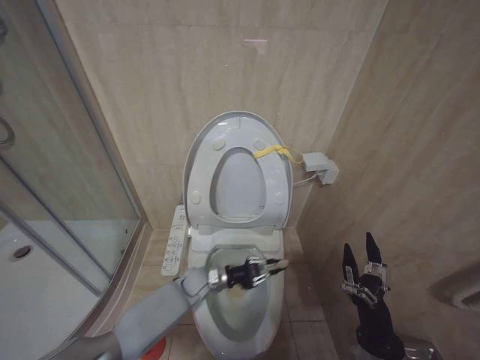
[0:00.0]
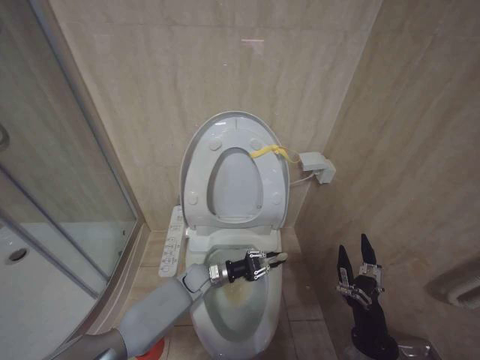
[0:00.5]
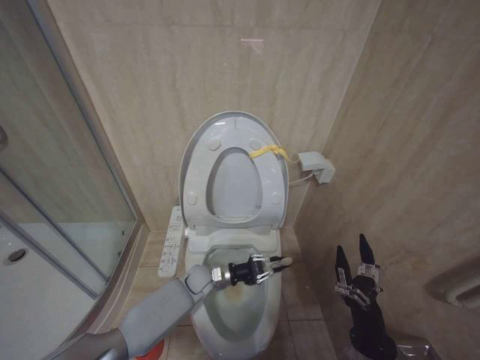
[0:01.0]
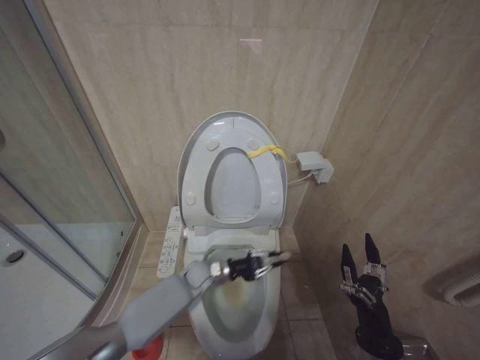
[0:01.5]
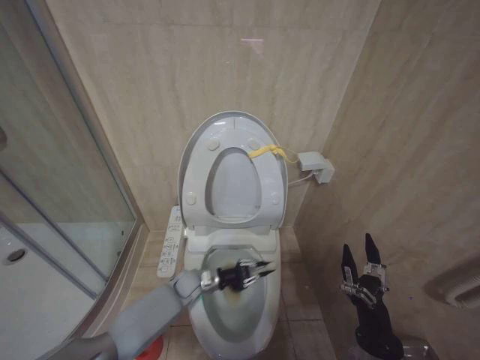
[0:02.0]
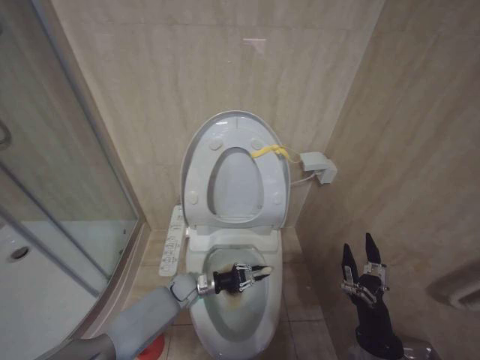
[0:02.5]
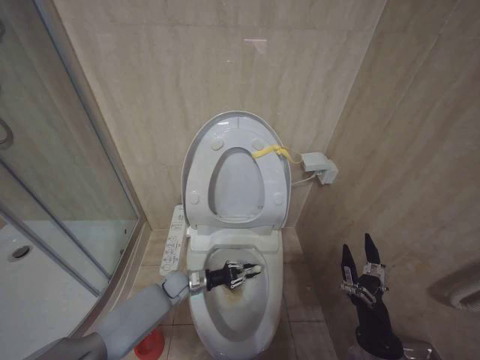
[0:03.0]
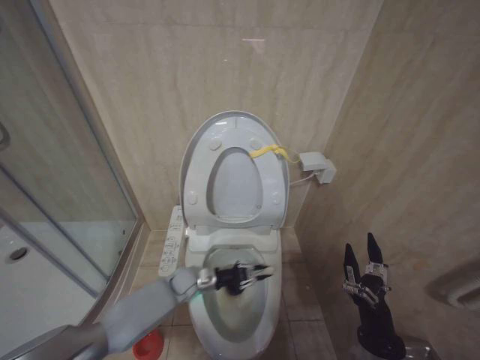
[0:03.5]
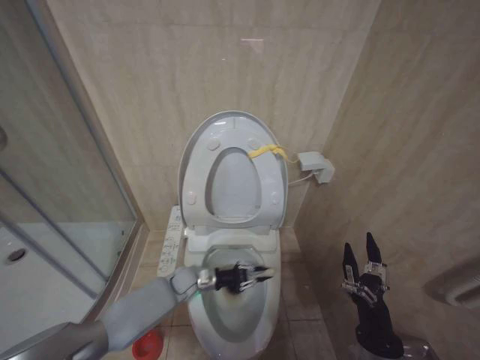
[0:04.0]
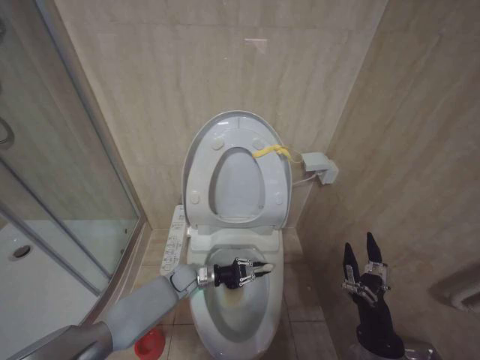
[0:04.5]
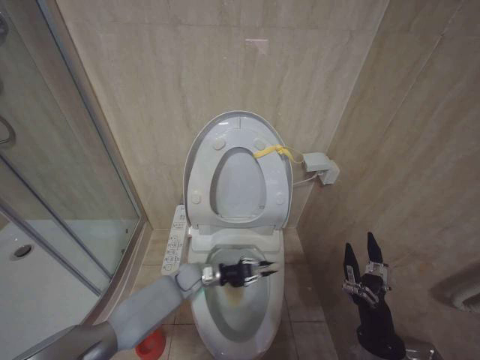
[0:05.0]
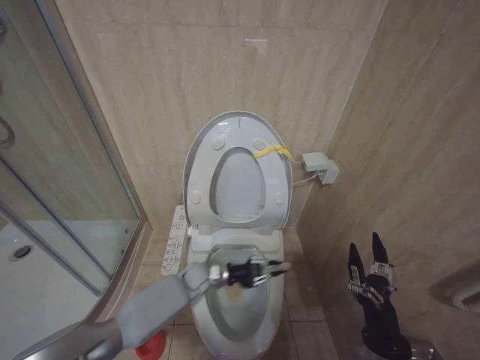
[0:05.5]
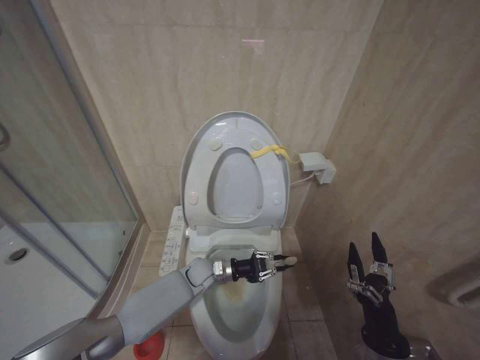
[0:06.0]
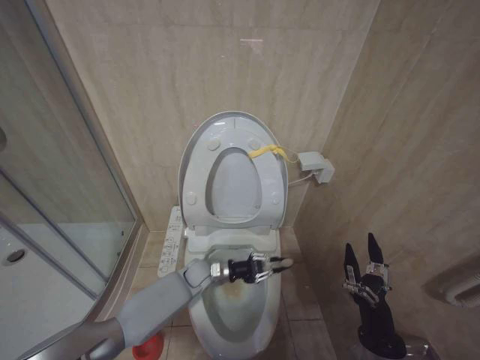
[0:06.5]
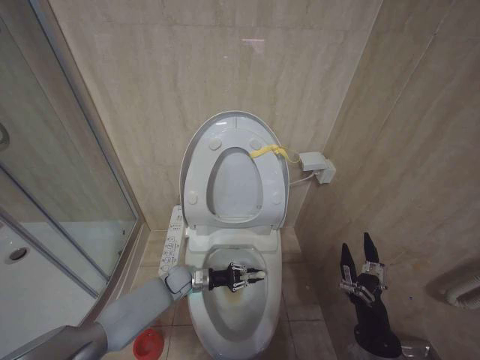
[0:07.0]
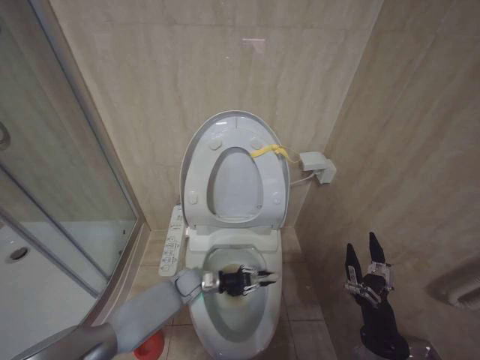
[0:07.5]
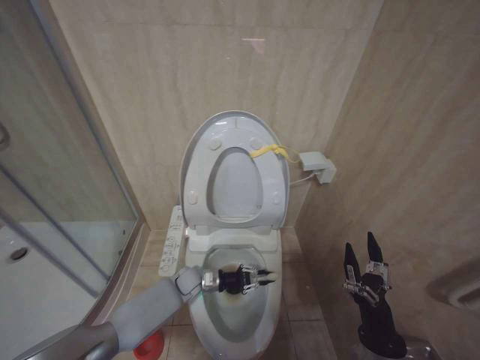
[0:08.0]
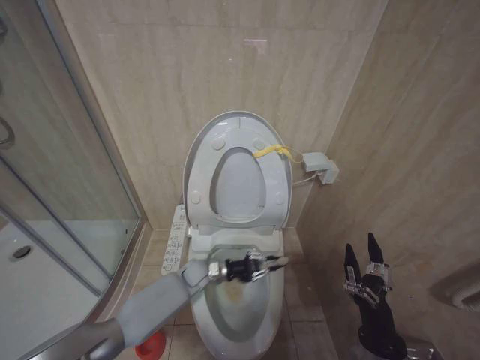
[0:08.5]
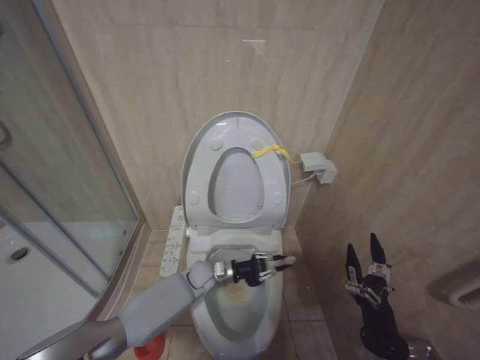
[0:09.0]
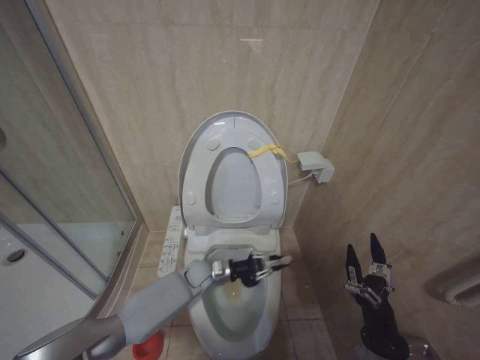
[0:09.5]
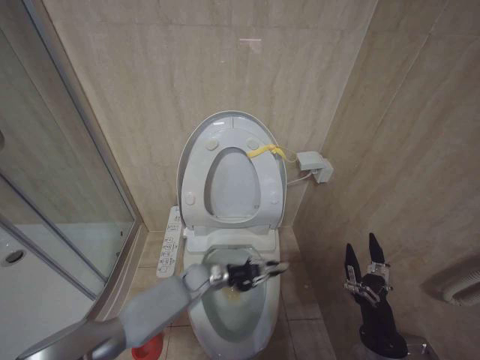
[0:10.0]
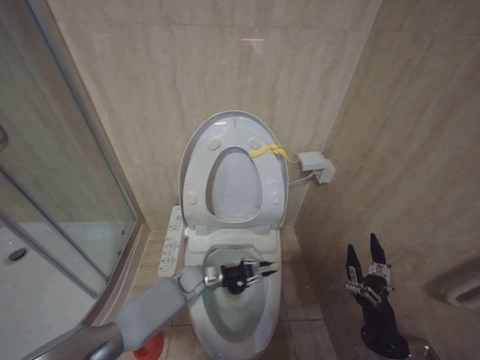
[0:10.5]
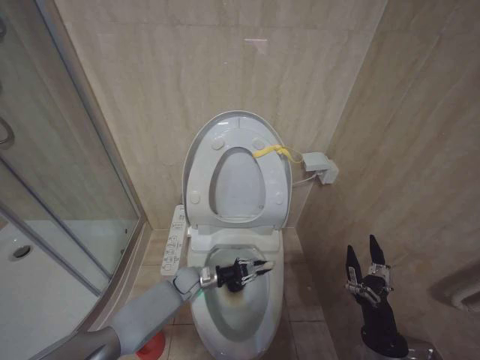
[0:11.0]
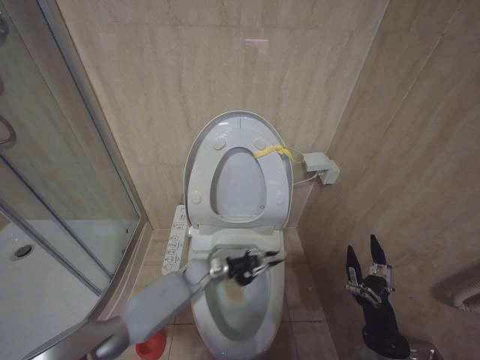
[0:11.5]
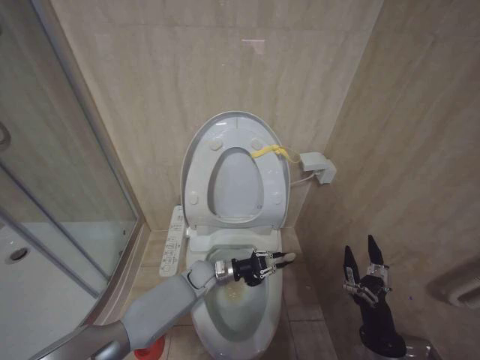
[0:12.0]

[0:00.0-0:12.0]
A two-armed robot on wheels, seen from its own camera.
Task of the whole recording: Open the toilet lid, clean the toilet bowl with a toilet brush, close the toilet lid, and flush.
0:04.0 to 0:06.0: The grippers stay close to where they were, moving slightly.
0:08.0 to 0:10.0: The grippers move only a little.
0:10.0 to 0:12.0: The grippers stay close to where they were, moving slightly.

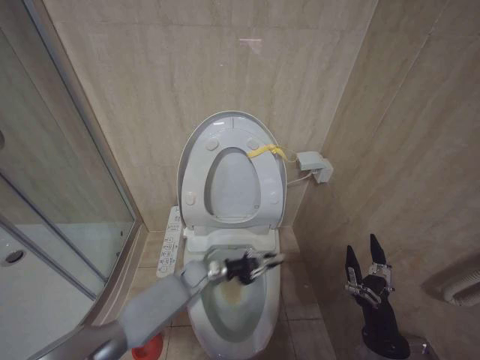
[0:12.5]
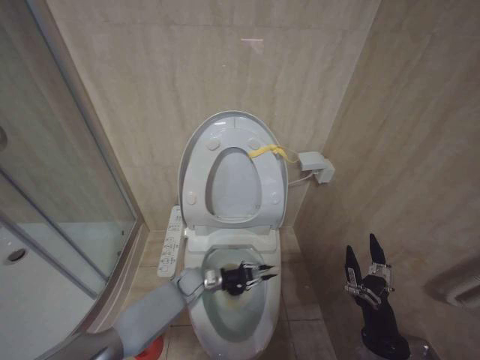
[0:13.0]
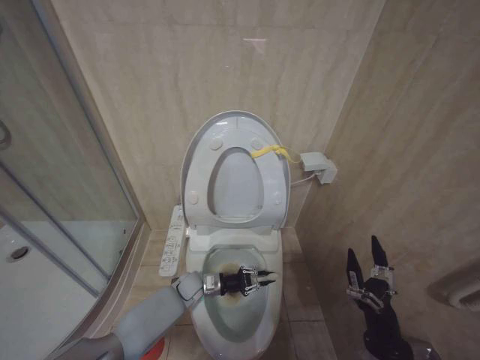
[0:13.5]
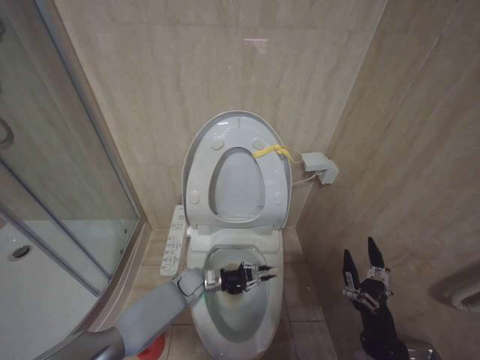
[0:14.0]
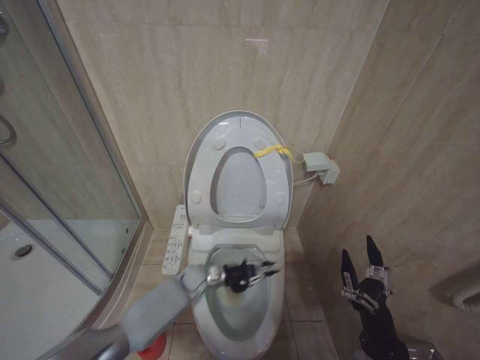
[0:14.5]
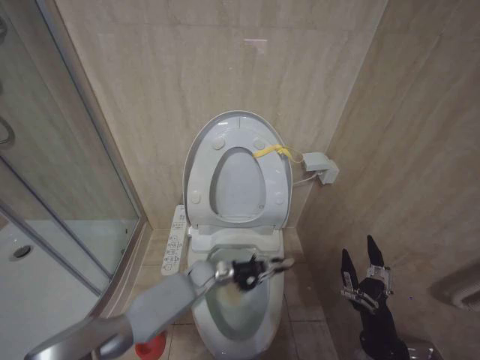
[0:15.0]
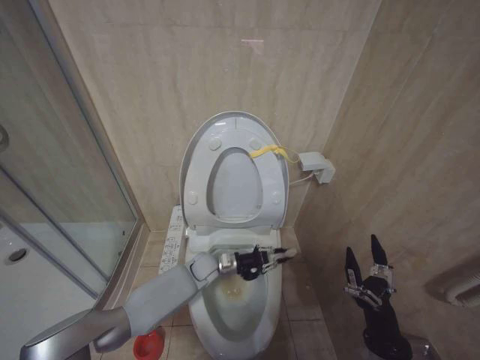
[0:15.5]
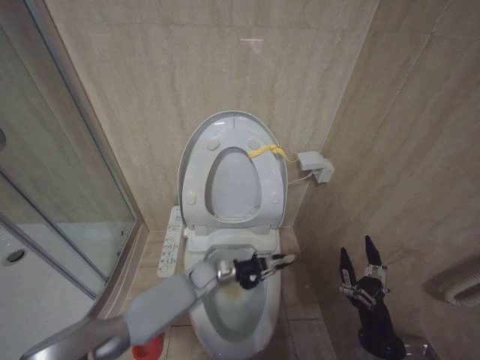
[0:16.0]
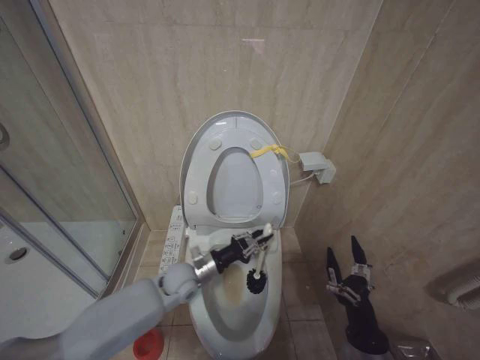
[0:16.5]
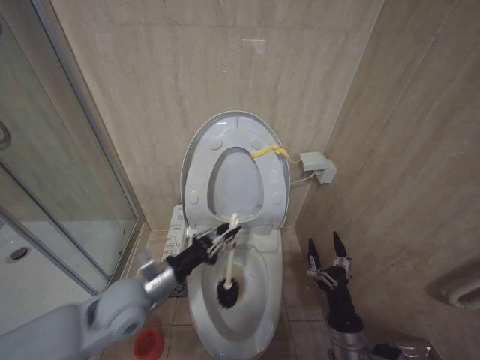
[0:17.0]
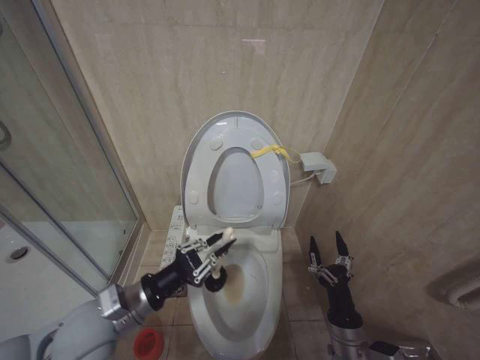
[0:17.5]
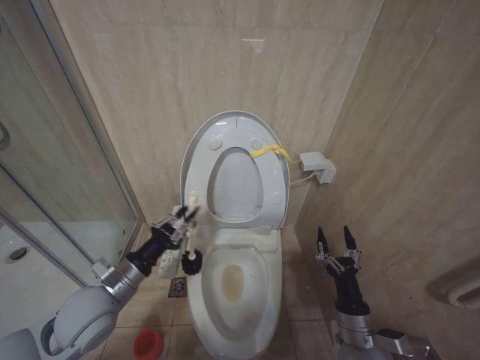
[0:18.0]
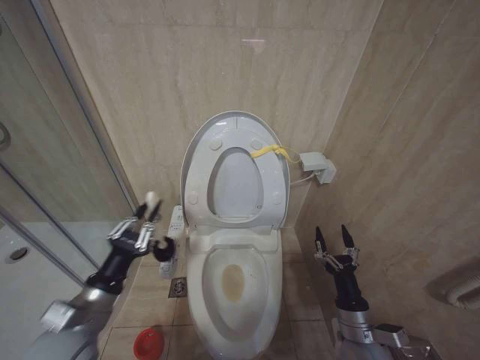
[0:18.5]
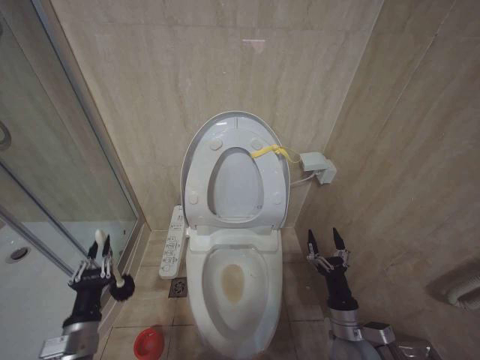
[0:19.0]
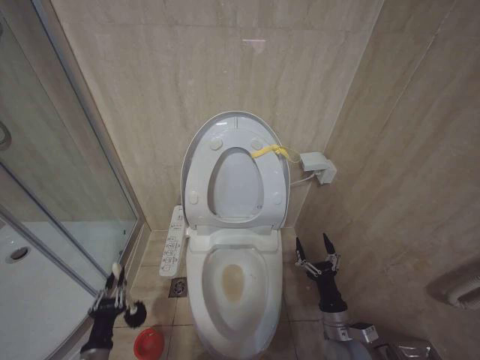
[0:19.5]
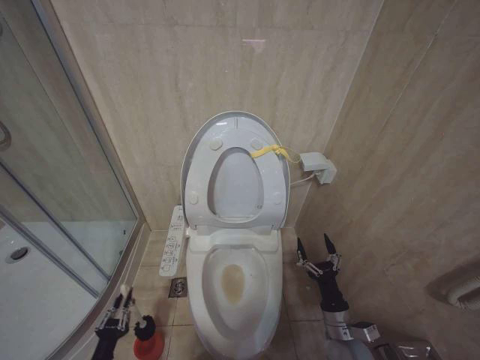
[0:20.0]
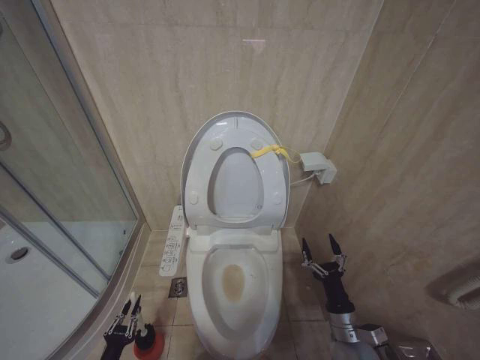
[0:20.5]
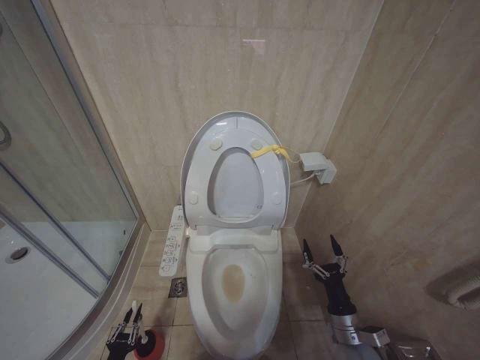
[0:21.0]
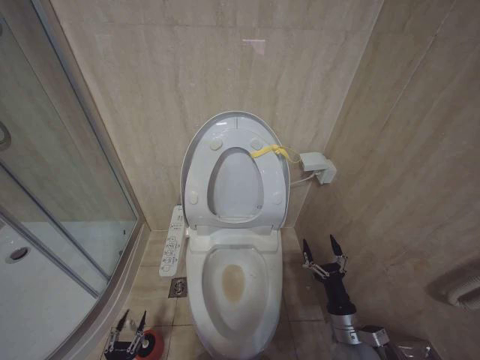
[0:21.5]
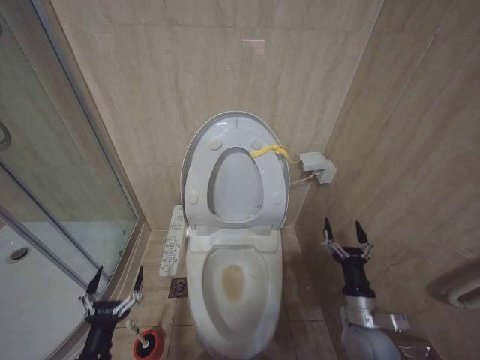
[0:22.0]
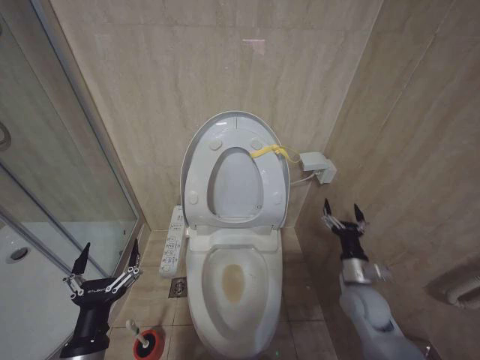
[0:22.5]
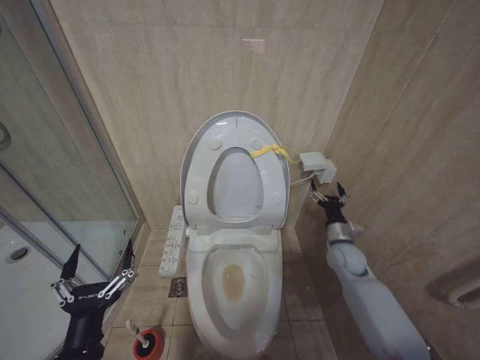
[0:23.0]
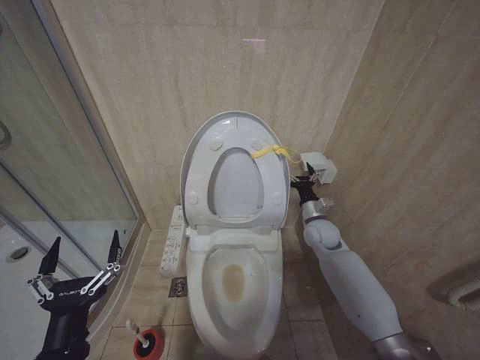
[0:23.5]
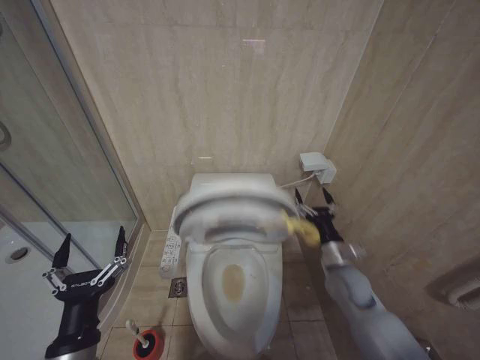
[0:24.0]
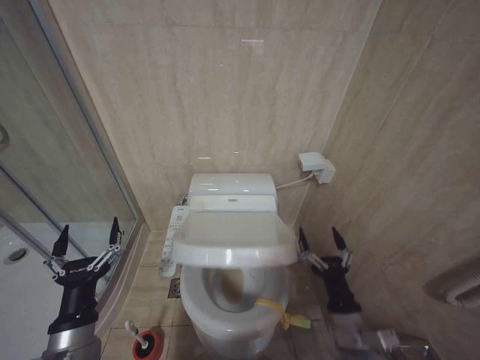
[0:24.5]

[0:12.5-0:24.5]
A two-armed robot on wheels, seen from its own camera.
Task of the whole recording: Open the toilet lid, clean the toilet bowl with a toilet brush, close the toilet lid, and flush.
0:12.5 to 0:14.5: The left gripper heads downward, covering some 5 cm.
0:14.5 to 0:16.5: The left gripper goes approximately 10 cm upward.
0:16.5 to 0:18.5: The right gripper heads forward, covering about 5 cm. The left gripper goes approximately 25 cm backward, to the left and upward.
0:18.5 to 0:20.5: The right gripper moves downward, about 5 cm. The left gripper travels downward by about 35 cm.
0:20.5 to 0:22.5: The right gripper moves upward and forward, roughly 10 cm, while the left gripper is displaced upward and to the right by approximately 30 cm, and opens its fingers.
0:22.5 to 0:24.5: The right gripper heads to the left, covering roughly 5 cm, and reaches about 20 cm forward, then returns.

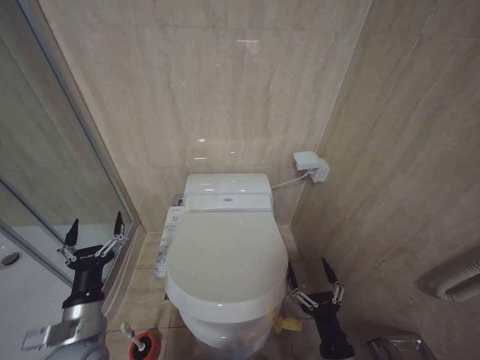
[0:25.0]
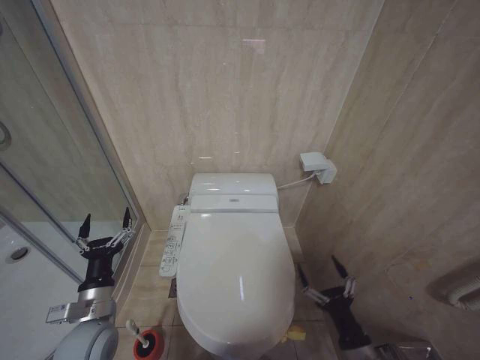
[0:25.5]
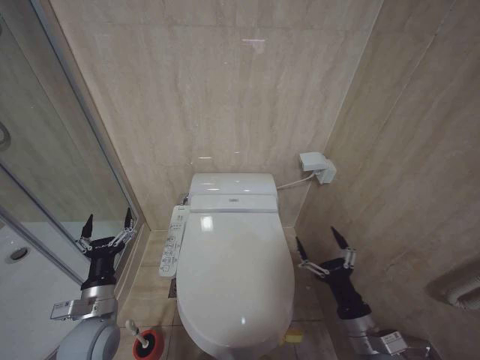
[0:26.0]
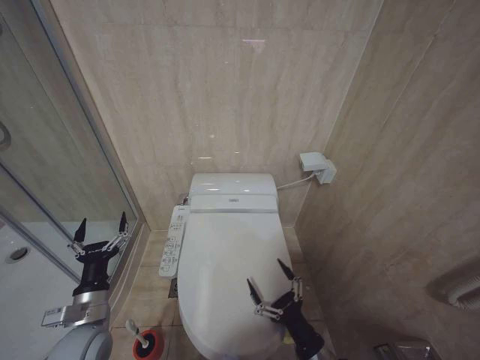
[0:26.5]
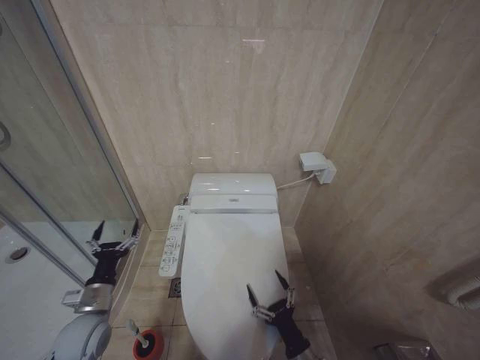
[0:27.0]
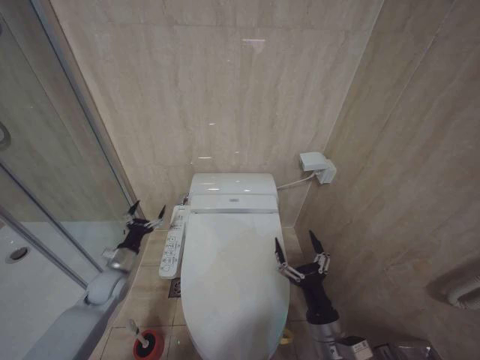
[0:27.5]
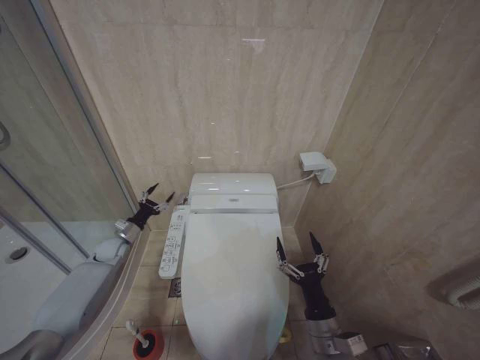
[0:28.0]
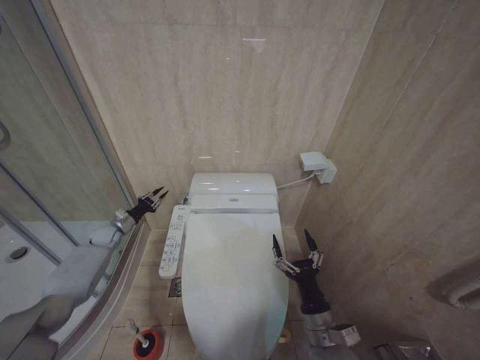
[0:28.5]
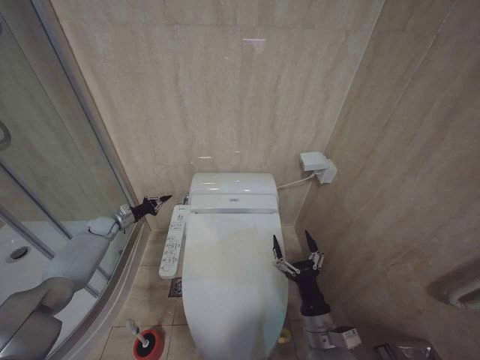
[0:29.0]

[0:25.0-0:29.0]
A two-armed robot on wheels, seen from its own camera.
Task of the whole recording: Open the toilet lid, clean the toilet bowl with a toilet brush, close the toilet lid, and flush.
0:25.0 to 0:27.0: The right gripper shifts approximately 10 cm downward. The left gripper shifts about 10 cm forward, downward and to the left.
0:27.0 to 0:29.0: The left gripper travels forward by some 30 cm, and closes up. The right gripper travels upward by approximately 10 cm.
